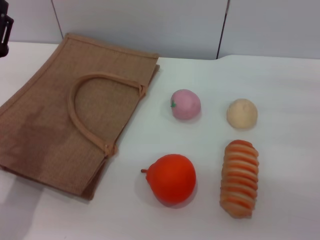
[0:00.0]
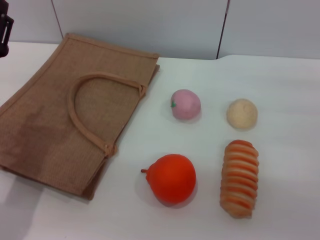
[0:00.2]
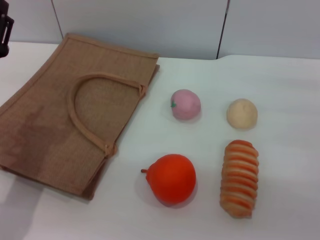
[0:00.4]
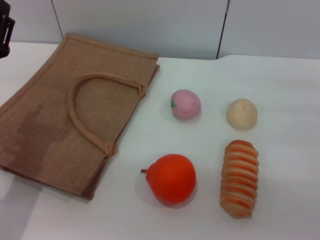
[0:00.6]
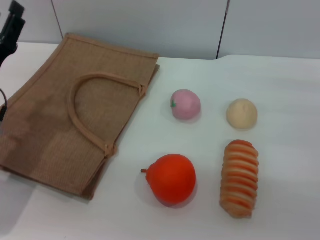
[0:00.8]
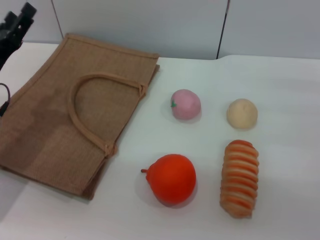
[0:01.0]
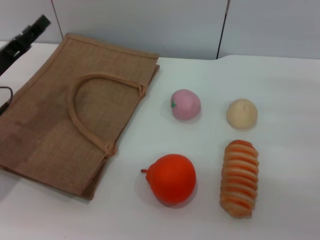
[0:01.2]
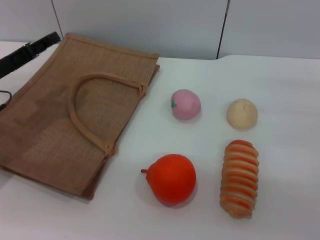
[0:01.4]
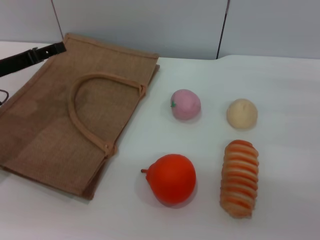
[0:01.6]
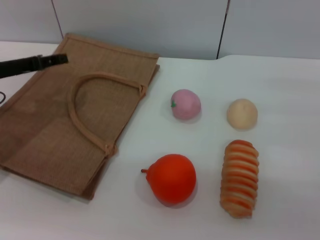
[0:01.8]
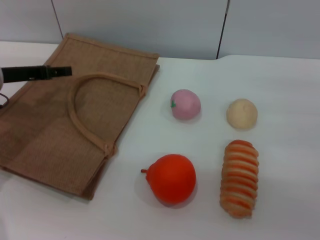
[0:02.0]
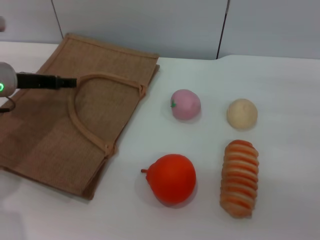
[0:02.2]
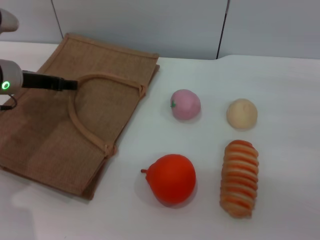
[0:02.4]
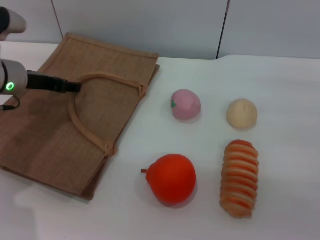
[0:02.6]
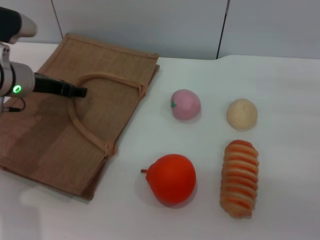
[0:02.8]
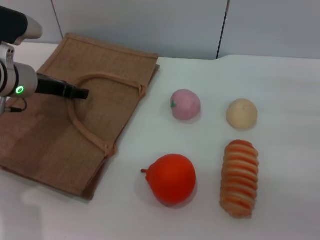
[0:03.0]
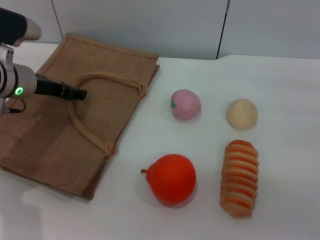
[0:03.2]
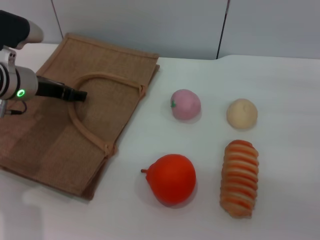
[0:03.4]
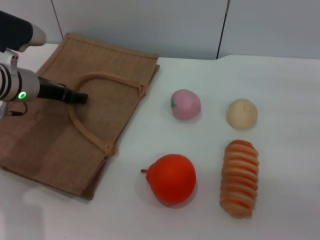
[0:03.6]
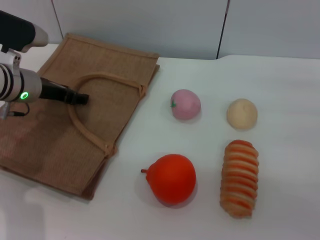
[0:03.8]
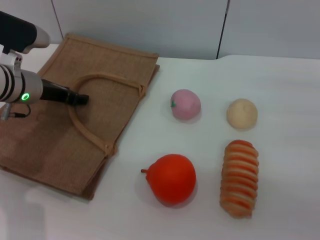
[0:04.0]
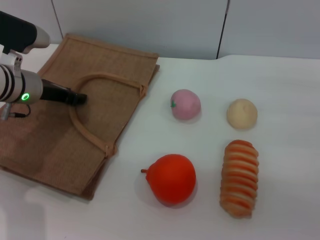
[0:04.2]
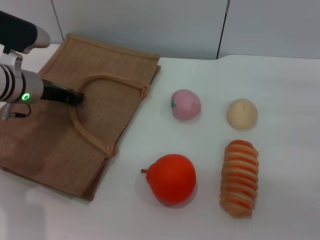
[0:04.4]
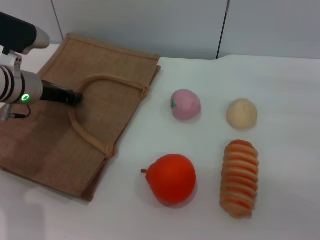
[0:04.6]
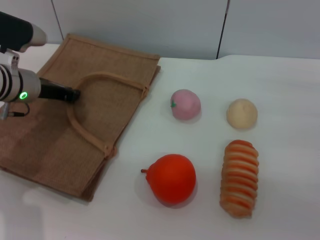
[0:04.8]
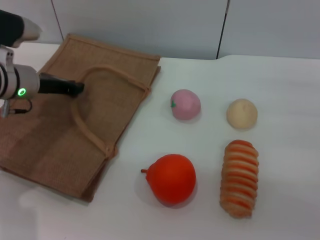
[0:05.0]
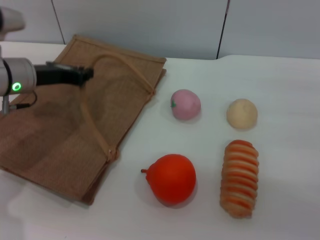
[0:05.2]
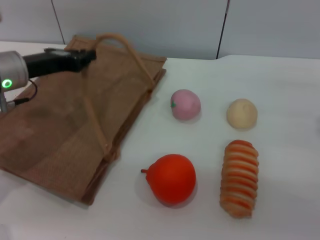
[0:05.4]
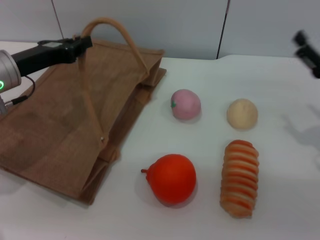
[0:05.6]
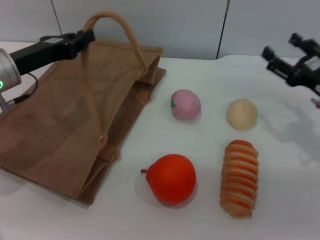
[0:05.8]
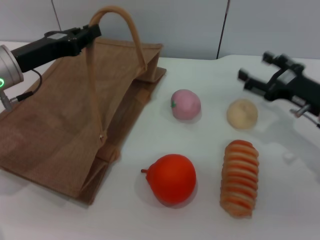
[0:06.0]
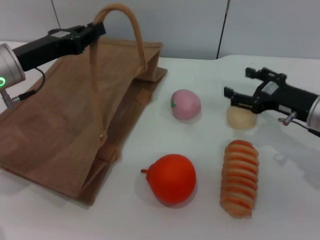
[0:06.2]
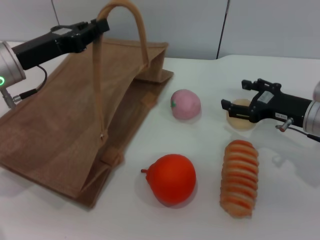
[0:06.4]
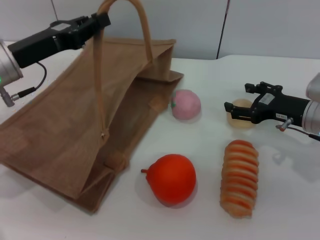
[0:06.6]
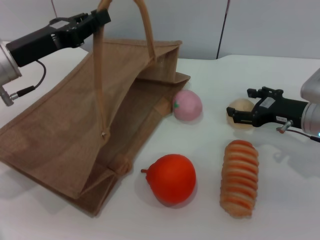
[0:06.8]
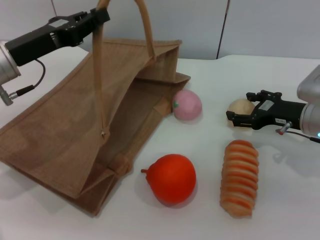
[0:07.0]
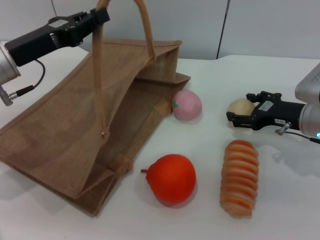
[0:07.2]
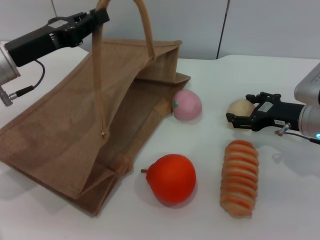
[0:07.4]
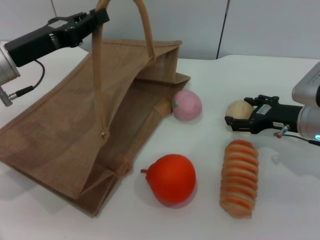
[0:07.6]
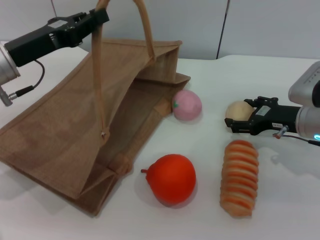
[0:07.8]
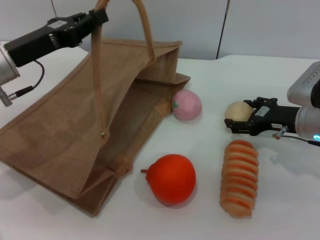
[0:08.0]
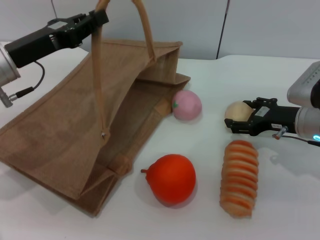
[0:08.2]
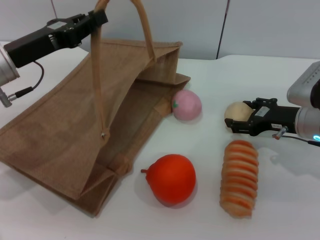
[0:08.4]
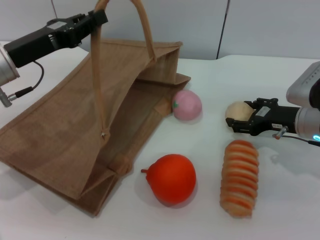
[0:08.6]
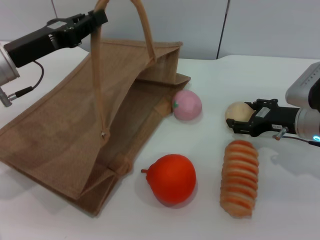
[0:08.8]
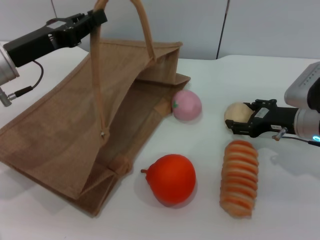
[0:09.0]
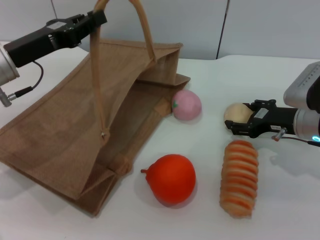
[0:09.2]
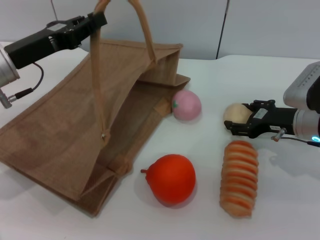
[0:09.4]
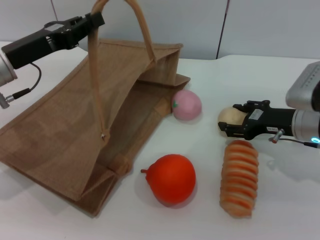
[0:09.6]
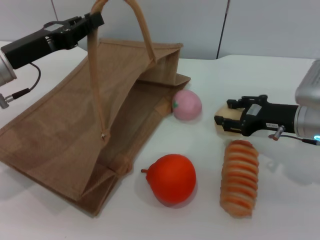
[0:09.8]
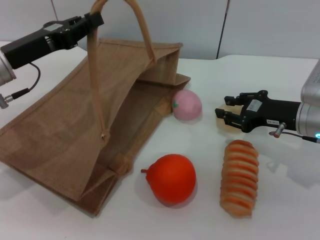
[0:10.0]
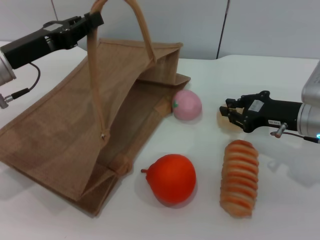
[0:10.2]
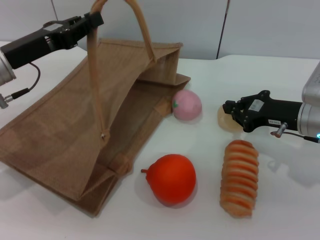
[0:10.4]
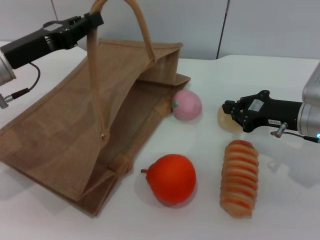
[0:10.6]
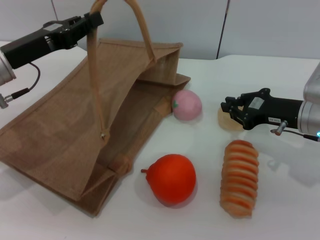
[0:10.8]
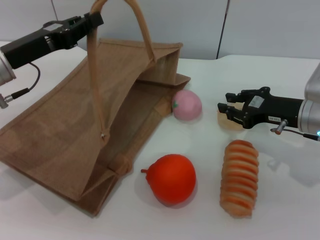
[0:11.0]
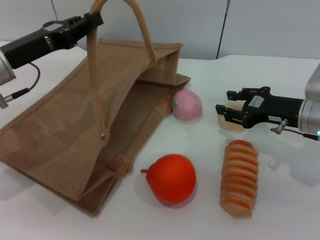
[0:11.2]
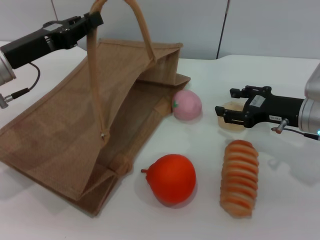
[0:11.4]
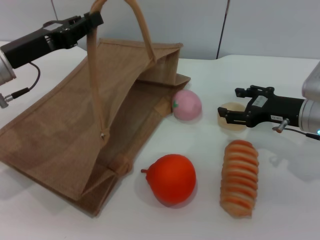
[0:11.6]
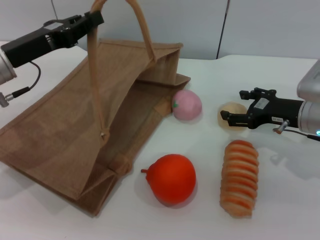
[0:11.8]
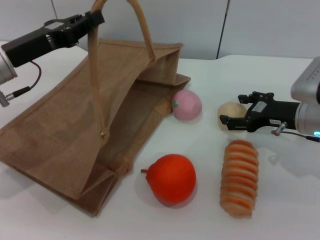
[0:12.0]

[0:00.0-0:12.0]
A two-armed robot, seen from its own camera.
Task of the whole recording: pick up the egg yolk pastry from the table and place it in the brown handbag.
Step, 0:00.0 to 0:05.6: Lift the woven bag with the left gripper to open it.
0:00.0 to 0:01.6: The left gripper shifts approximately 10 cm forward and to the left.
0:01.6 to 0:03.0: The left gripper moves to the right, roughly 5 cm.
0:03.0 to 0:04.4: The left gripper closes its fingers.
0:04.4 to 0:06.0: The right gripper travels forward and to the left by about 10 cm, while the left gripper changes place by about 5 cm.
0:07.6 to 0:09.0: Both grippers stay put.
0:09.0 to 0:10.4: The right gripper closes.
0:10.4 to 0:12.0: The right gripper opens its fingers.

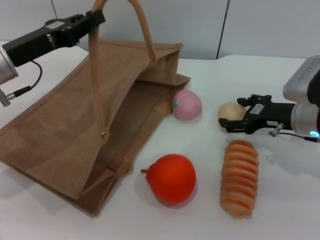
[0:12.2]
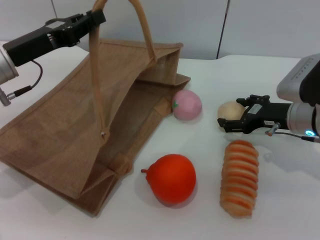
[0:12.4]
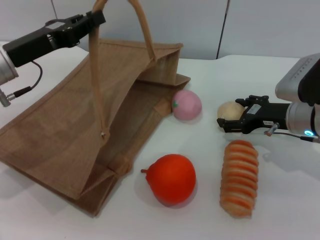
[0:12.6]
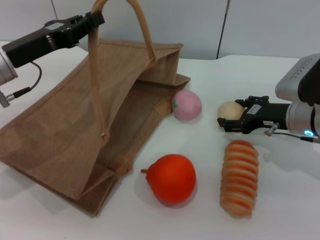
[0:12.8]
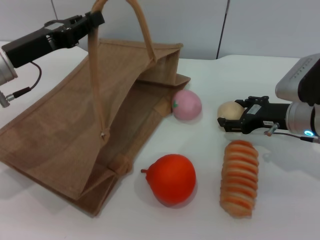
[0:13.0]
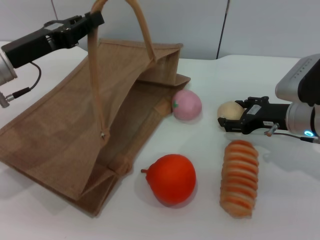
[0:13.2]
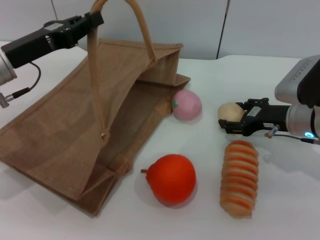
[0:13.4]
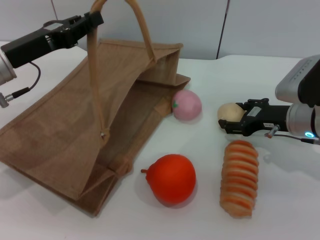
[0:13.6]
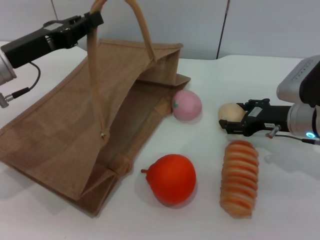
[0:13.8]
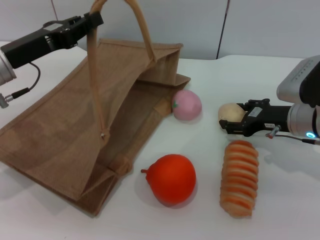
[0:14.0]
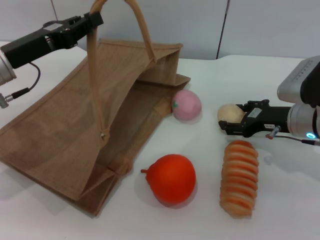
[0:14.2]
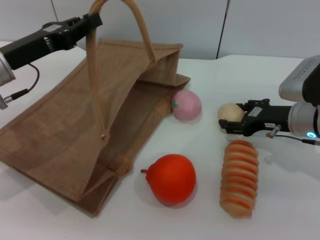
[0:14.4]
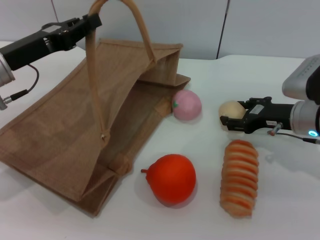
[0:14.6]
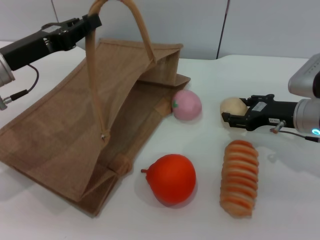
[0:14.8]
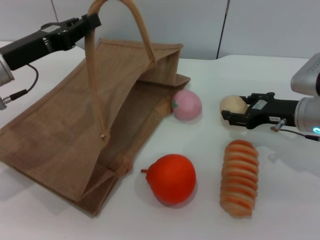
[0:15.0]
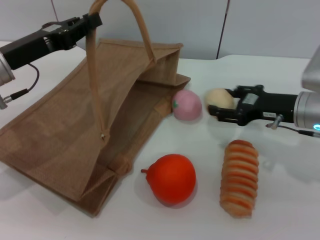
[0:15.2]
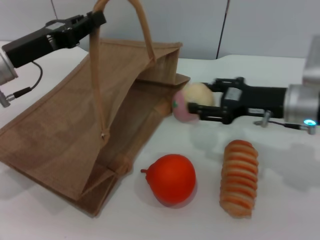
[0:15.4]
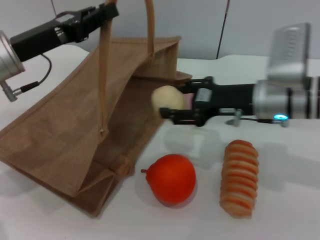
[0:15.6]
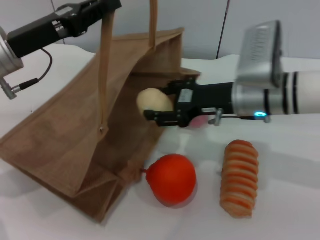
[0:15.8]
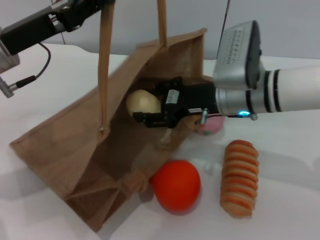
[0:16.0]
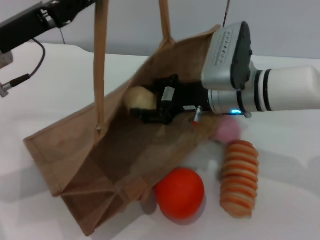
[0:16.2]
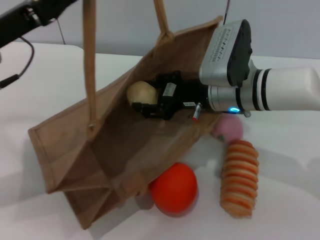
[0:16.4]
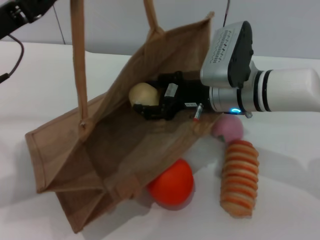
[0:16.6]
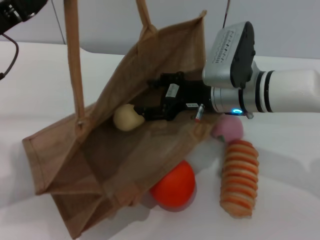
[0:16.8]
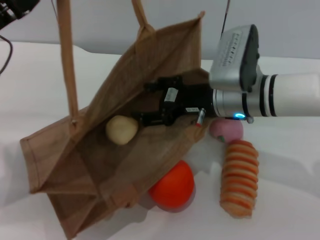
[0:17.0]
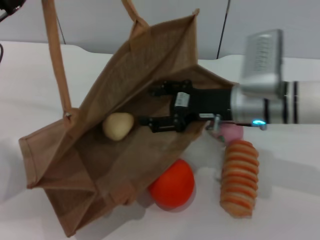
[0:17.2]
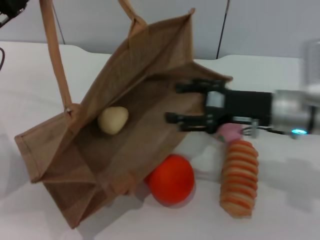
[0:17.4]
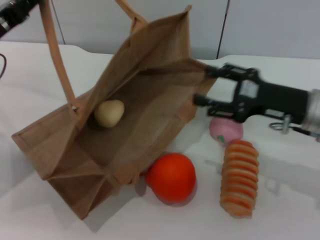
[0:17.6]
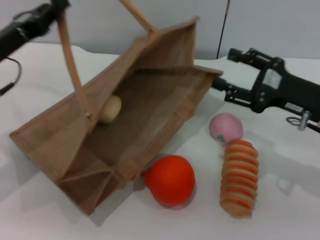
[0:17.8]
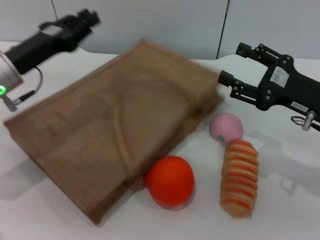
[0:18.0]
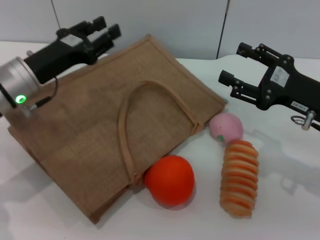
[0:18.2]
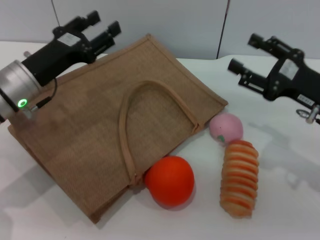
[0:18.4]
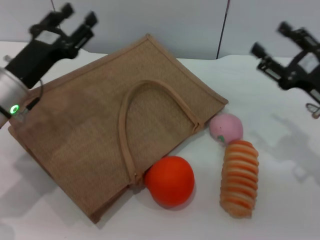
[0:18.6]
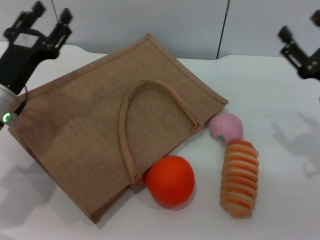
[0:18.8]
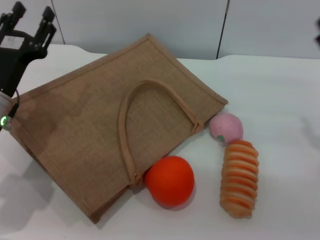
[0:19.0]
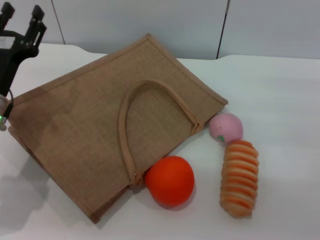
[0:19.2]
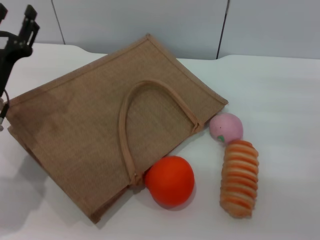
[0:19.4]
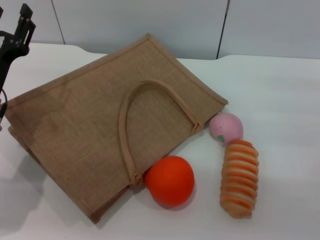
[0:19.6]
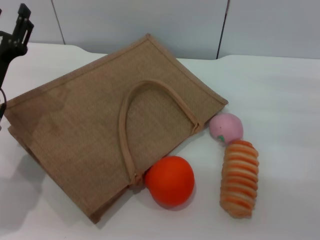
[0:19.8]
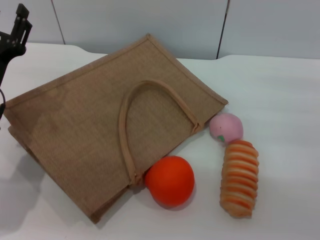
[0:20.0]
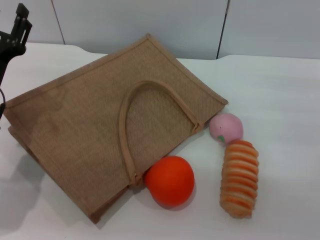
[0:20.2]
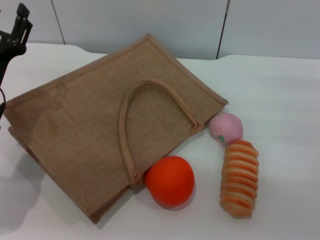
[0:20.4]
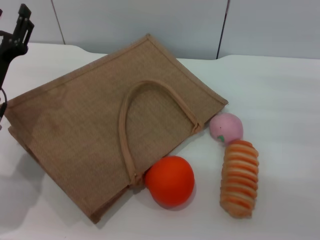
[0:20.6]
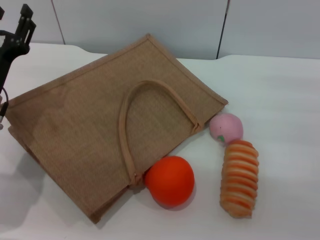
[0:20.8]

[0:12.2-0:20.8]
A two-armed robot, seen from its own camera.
Task of the whole recording: pick up the egg yolk pastry from the table and place it in the brown handbag.
Step, 0:12.2 to 0:14.8: Pick up the egg yolk pastry with the right gripper.
Step, 0:15.0 to 0:17.2: Place the egg yolk pastry into the woven bag with the right gripper.
Step, 0:17.4 to 0:18.2: Lower the woven bag with the left gripper to close it.
0:12.2 to 0:13.6: Neither gripper changes place.
0:13.6 to 0:15.0: There are only small adjustments of the grippers.
0:15.0 to 0:16.6: The right gripper moves to the left, about 15 cm, while the left gripper moves about 5 cm.
0:16.6 to 0:18.0: The left gripper heads downward, covering approximately 5 cm, while the right gripper heads to the right and backward, covering roughly 15 cm.
0:18.0 to 0:19.4: The right gripper is displaced to the right by some 5 cm, while the left gripper moves roughly 5 cm, and opens.
0:19.4 to 0:20.8: Both grippers stay about where they are.
